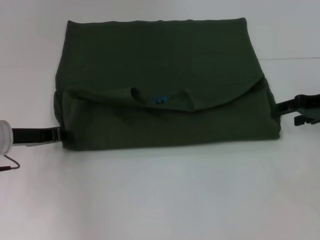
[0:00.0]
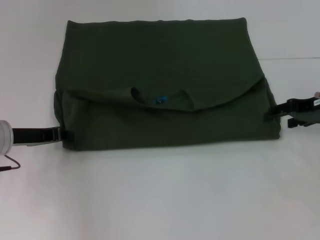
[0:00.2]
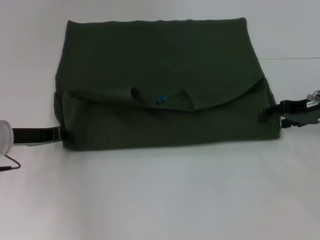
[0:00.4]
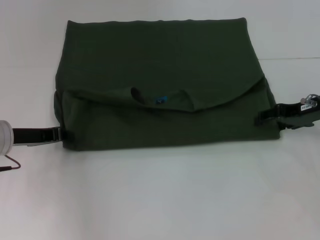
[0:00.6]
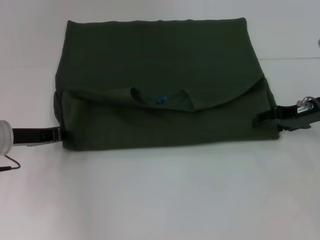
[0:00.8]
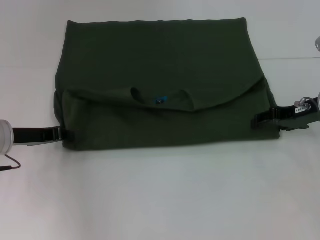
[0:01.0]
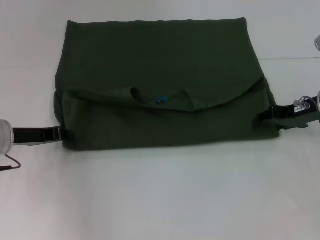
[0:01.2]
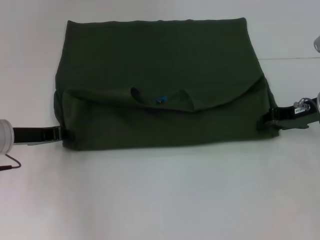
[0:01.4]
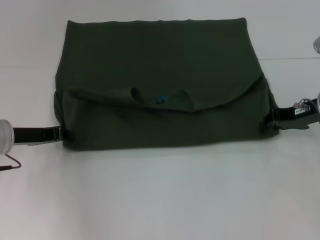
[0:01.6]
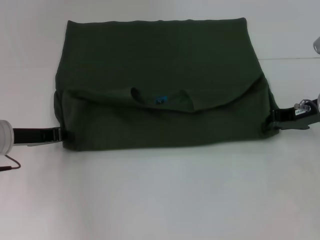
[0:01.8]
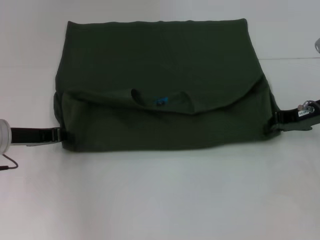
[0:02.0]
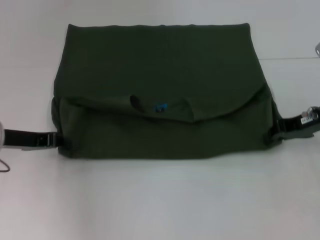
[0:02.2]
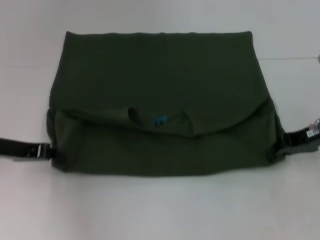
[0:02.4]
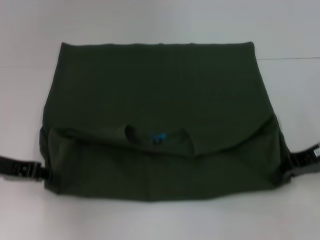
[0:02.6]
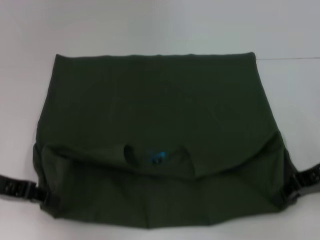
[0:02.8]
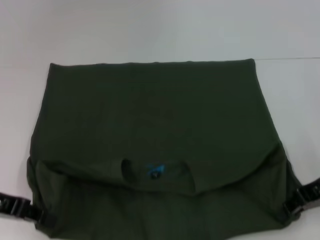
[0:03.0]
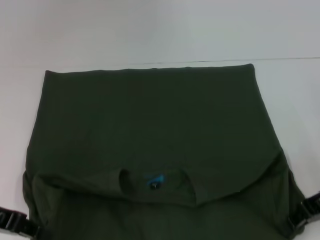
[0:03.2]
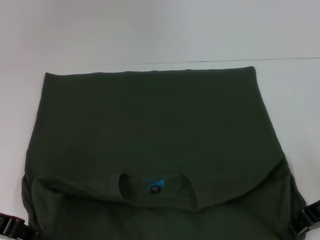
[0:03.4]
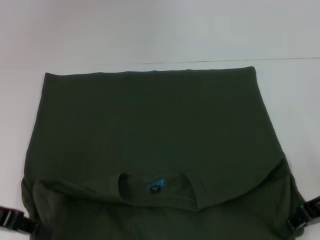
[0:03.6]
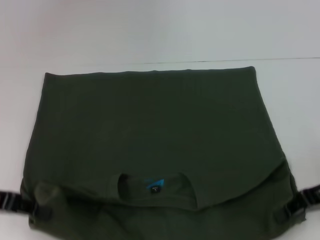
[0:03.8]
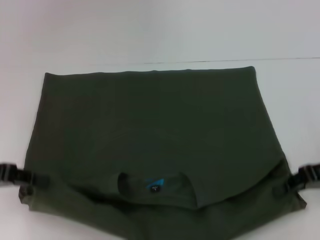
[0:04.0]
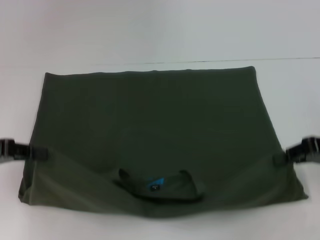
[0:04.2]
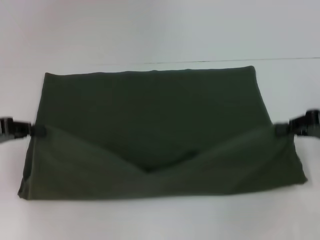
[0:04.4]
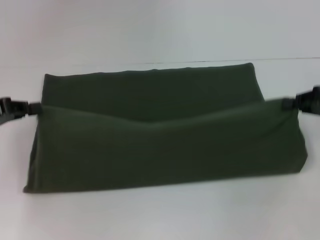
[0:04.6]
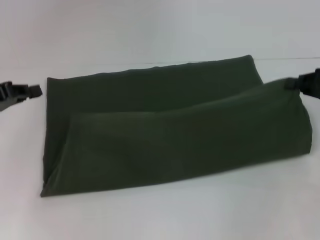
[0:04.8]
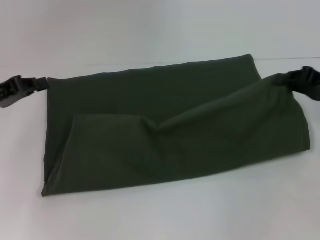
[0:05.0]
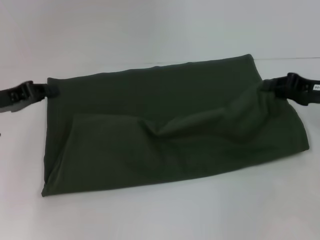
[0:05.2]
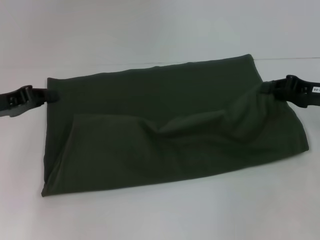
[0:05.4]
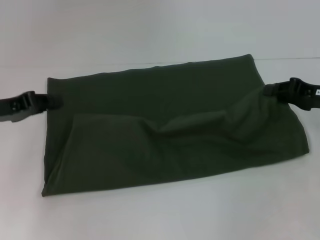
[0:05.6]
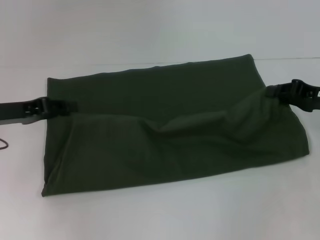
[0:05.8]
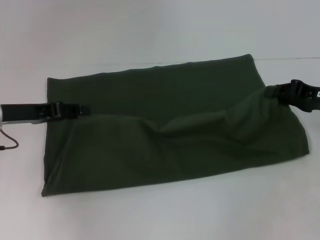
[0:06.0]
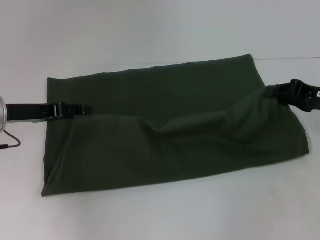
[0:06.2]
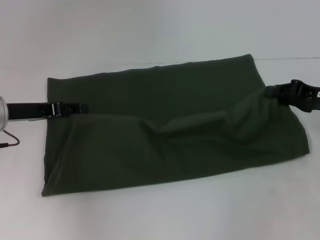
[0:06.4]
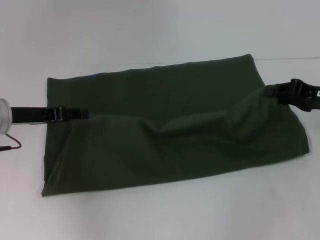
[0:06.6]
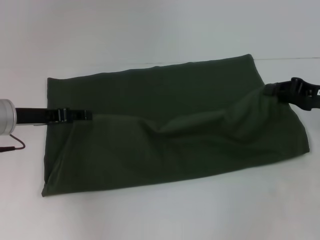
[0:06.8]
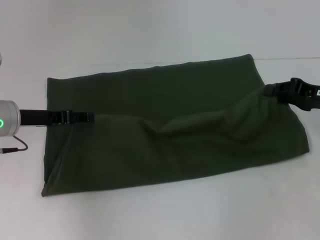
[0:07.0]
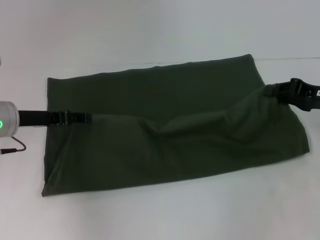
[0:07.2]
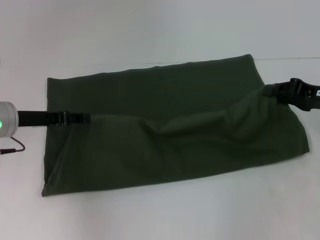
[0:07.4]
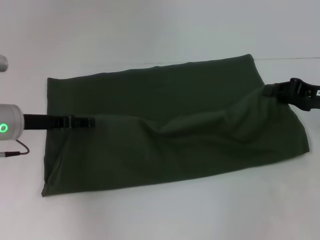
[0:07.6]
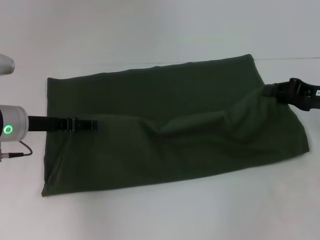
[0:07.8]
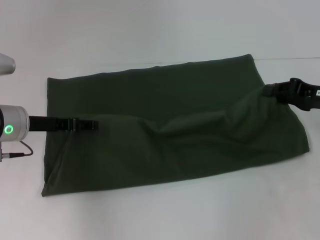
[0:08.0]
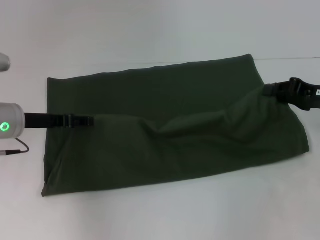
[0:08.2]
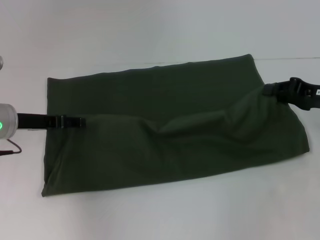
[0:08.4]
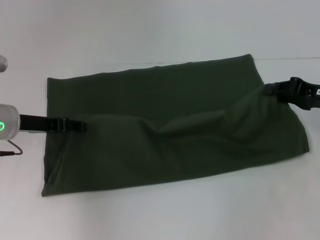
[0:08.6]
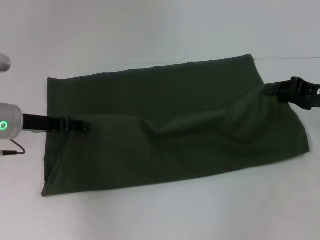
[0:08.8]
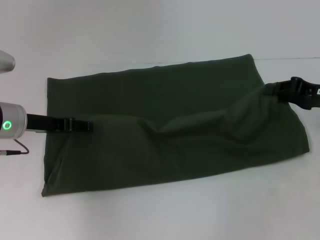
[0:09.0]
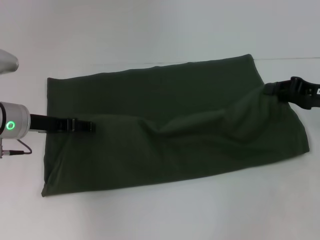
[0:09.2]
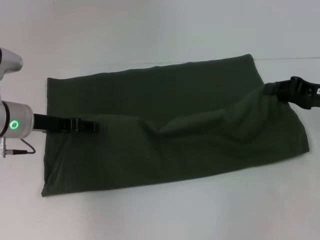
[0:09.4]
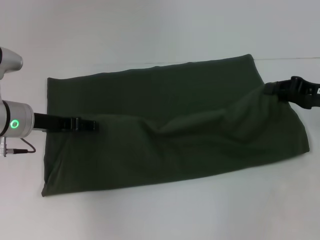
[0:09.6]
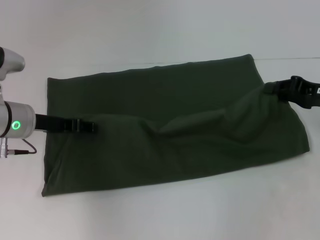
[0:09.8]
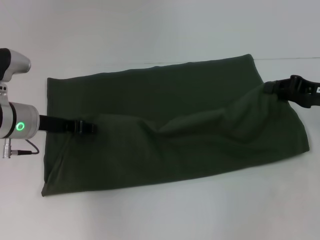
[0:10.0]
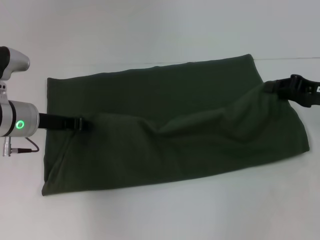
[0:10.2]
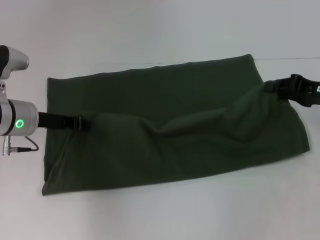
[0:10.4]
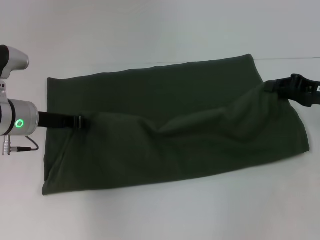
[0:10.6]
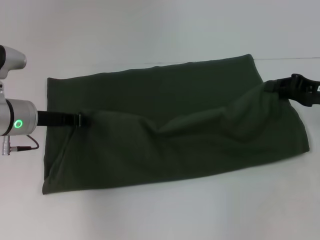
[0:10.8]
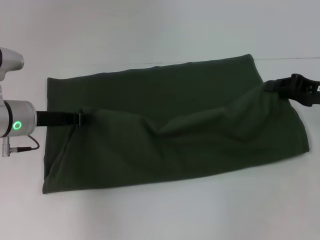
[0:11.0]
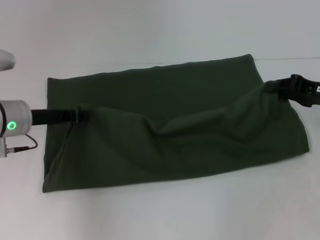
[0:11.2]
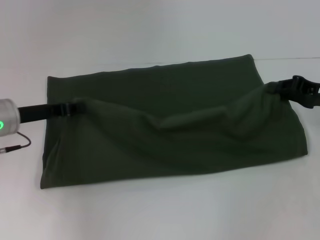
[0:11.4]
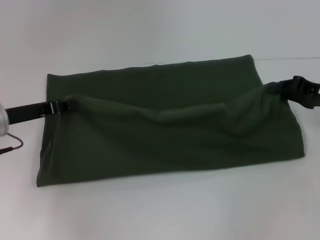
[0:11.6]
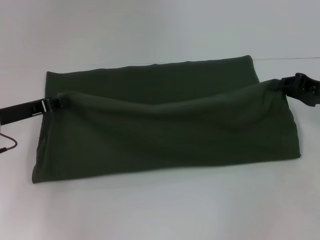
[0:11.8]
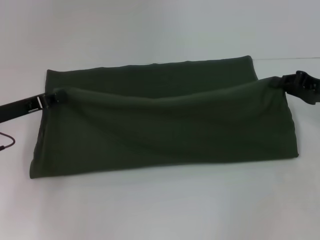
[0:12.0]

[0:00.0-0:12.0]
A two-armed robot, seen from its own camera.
0:00.0 to 0:01.6: The right gripper closes up.
0:01.6 to 0:03.0: Both grippers travel together backward, about 10 cm.
0:03.0 to 0:04.4: The right gripper shifts by approximately 5 cm.
0:04.4 to 0:06.0: The left gripper shifts some 5 cm to the right.
0:06.0 to 0:07.6: The left gripper opens.
0:07.6 to 0:09.0: There are only small adjustments of the grippers.
0:09.0 to 0:10.4: The left gripper closes up.
0:10.4 to 0:12.0: The left gripper heads to the left, covering roughly 5 cm.

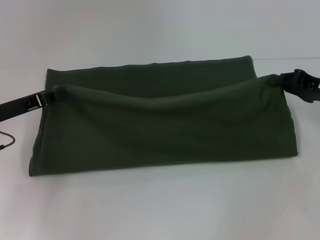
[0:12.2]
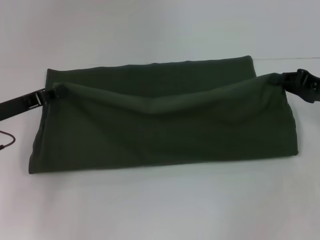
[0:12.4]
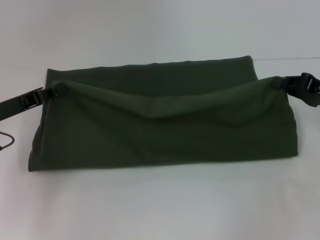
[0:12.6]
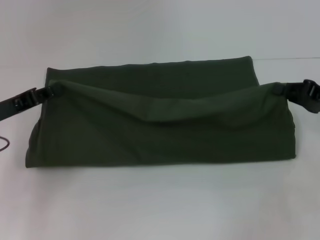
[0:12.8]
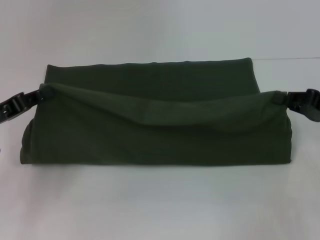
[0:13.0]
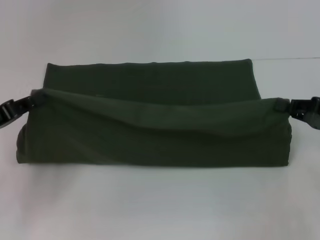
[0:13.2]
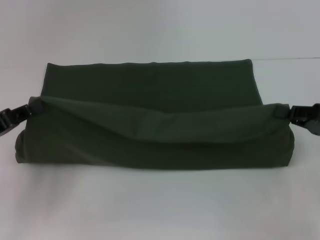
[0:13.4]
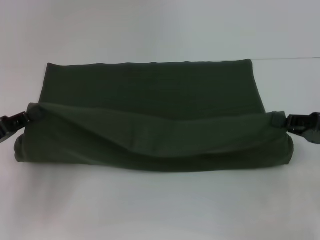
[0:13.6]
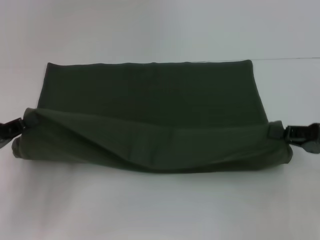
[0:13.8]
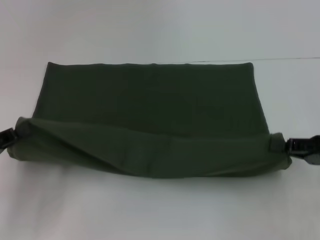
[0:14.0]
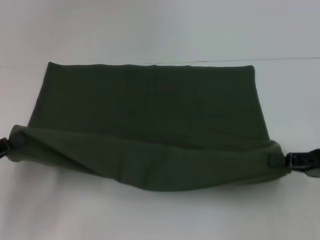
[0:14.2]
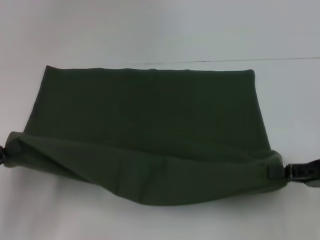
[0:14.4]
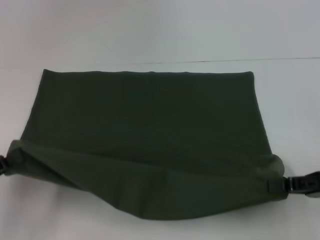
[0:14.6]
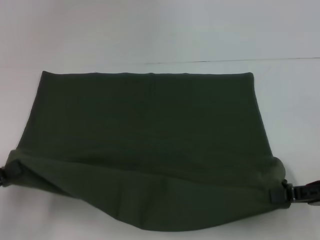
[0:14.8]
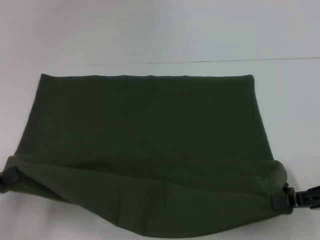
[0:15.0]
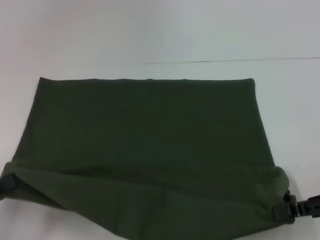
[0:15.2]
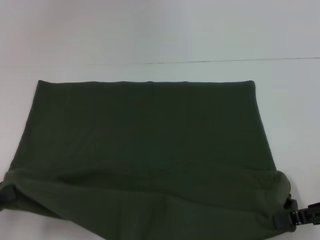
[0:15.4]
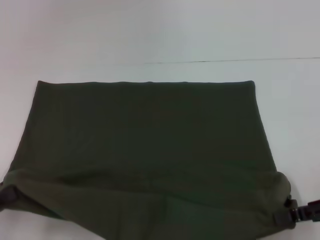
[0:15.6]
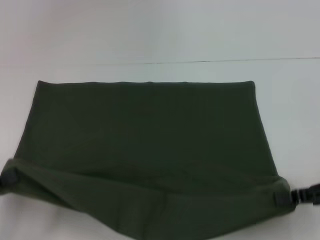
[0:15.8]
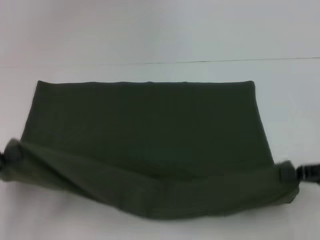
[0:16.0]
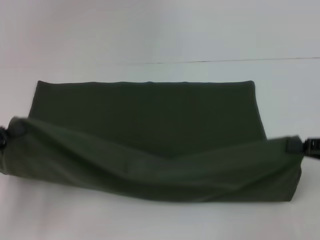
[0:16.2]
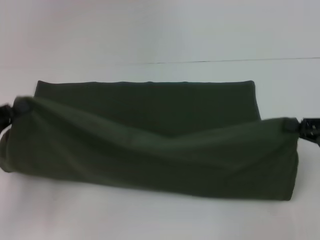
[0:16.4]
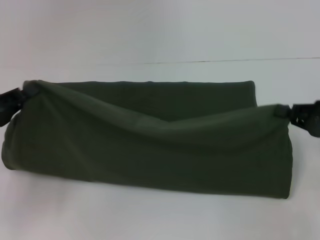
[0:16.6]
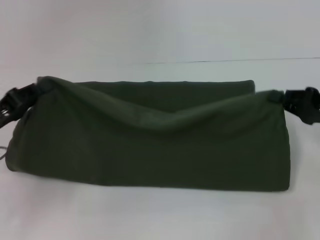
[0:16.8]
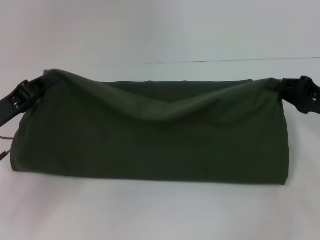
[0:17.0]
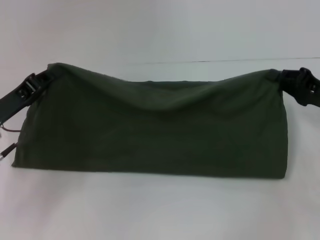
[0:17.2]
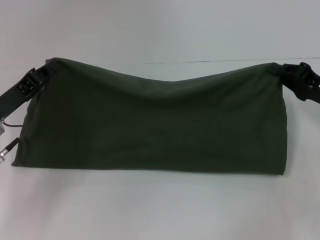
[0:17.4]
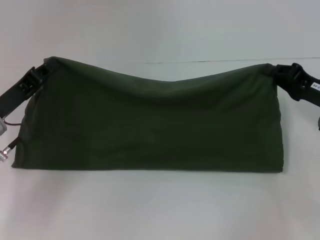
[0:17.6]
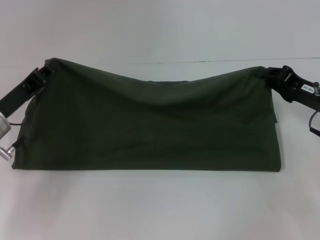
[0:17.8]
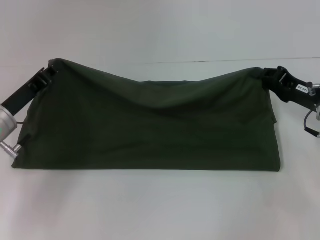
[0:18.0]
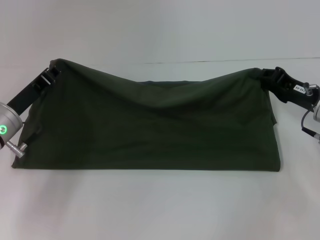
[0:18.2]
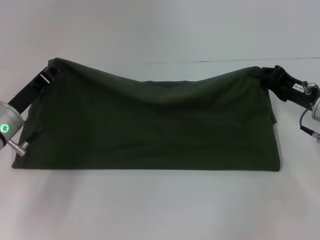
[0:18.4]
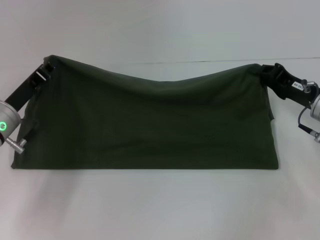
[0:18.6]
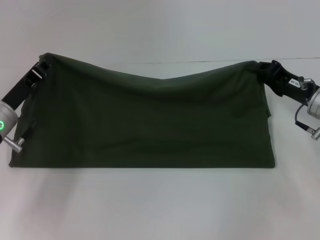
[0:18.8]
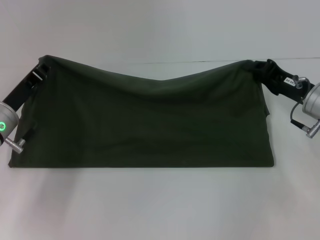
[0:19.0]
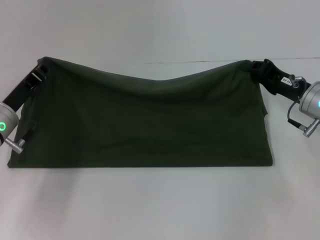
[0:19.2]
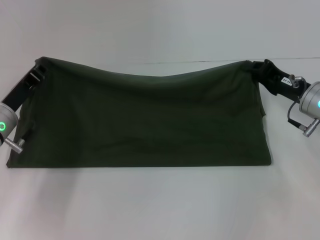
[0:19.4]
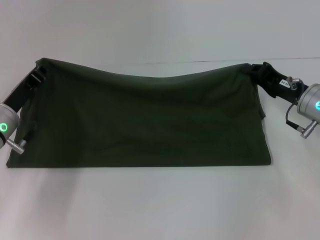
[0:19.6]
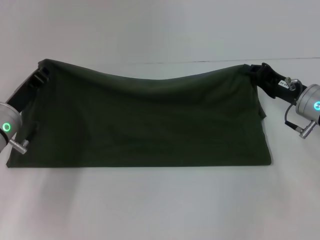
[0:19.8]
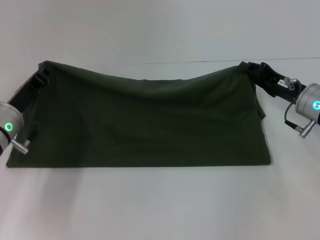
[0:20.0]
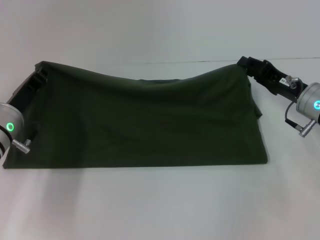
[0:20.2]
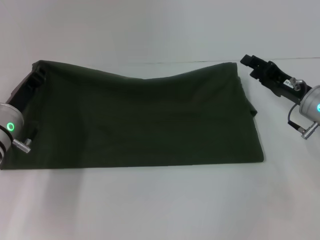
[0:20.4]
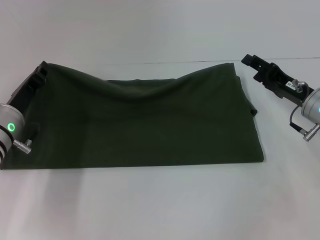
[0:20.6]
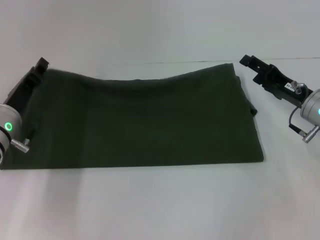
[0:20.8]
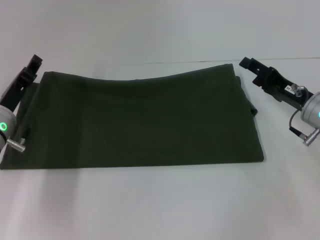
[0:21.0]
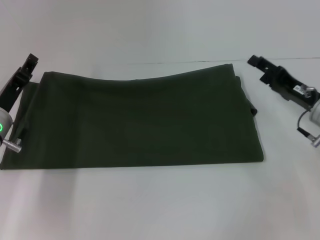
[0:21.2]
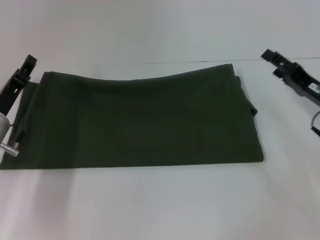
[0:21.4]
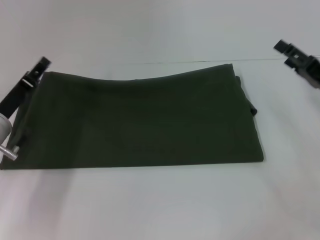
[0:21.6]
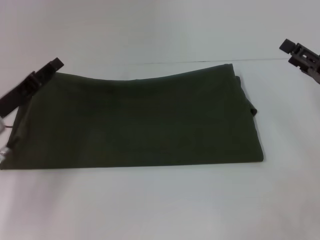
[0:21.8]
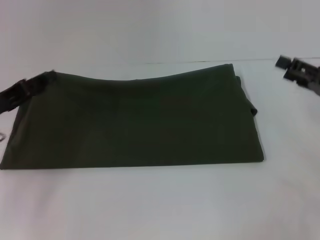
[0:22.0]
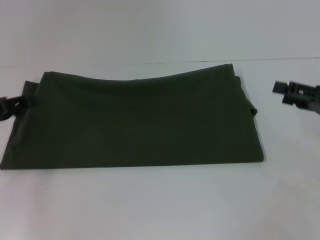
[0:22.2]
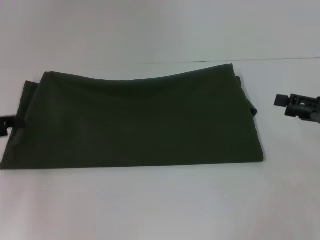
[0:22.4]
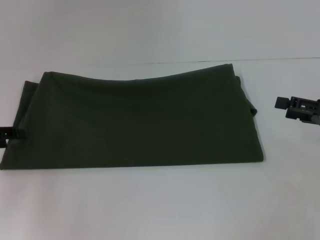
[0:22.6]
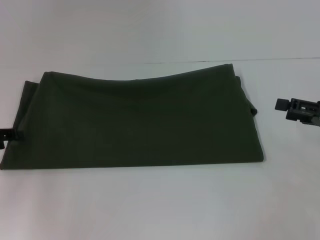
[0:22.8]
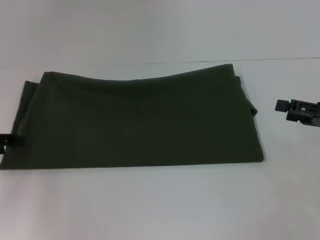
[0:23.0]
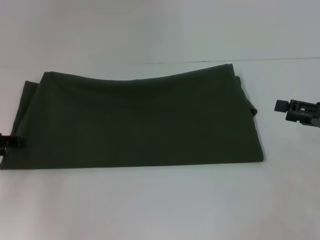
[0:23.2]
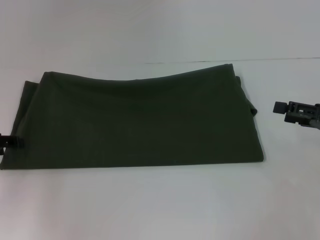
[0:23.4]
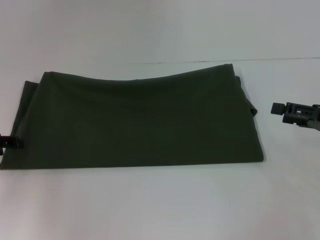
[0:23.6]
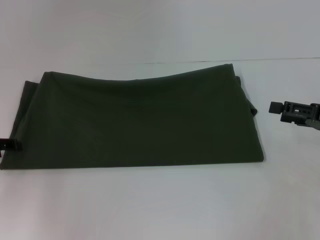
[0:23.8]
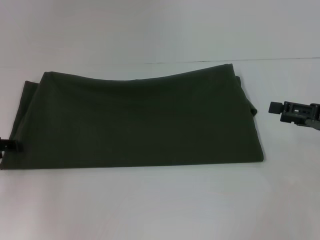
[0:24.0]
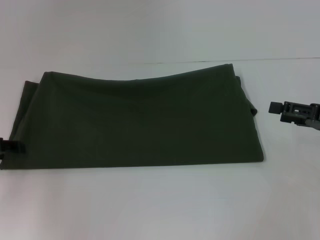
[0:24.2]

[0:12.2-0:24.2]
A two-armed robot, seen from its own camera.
Step, 0:12.2 to 0:15.4: Pull the clothes with your left hand.
Step, 0:12.2 to 0:15.4: Pull the clothes with your right hand.
Step, 0:15.6 to 0:21.2: Fold the clothes with your right hand.
0:12.2 to 0:13.8: Both grippers travel together backward, some 10 cm.
0:13.8 to 0:15.2: The left gripper travels backward by about 10 cm.
0:15.2 to 0:16.6: The right gripper moves forward, some 5 cm. The left gripper shifts some 10 cm forward.
0:16.6 to 0:18.2: The left gripper travels forward and to the right by some 10 cm; the right gripper goes approximately 10 cm to the left and forward.
0:18.2 to 0:19.8: The grippers make only small movements.
0:19.8 to 0:21.2: The right gripper opens its fingers. Meanwhile the left gripper opens up.
0:21.2 to 0:22.6: The right gripper heads to the right, covering about 10 cm, while the left gripper heads to the left and upward, covering roughly 10 cm.
0:22.6 to 0:24.2: The grippers stay close to where they were, moving slightly.
